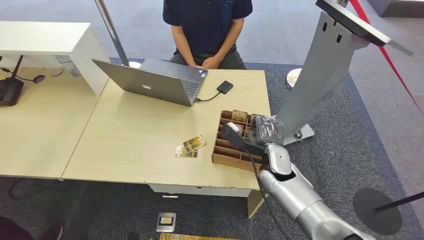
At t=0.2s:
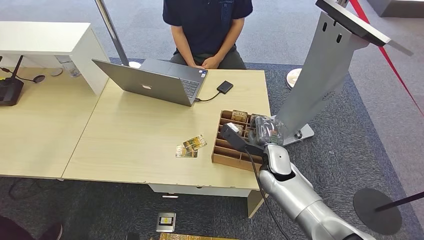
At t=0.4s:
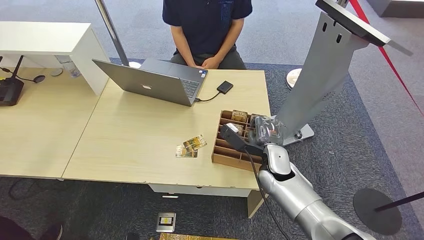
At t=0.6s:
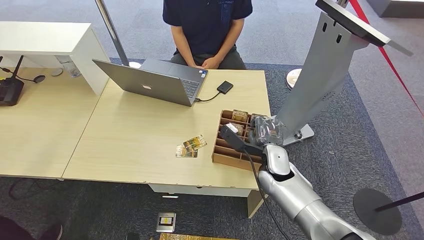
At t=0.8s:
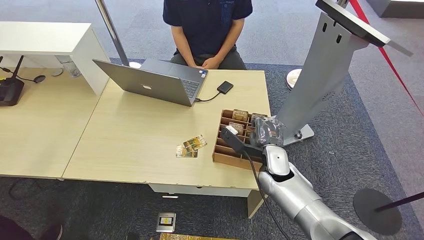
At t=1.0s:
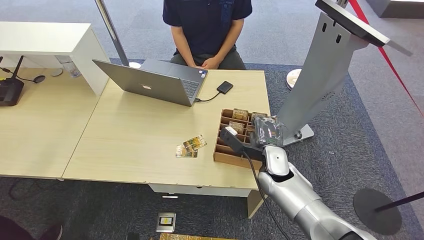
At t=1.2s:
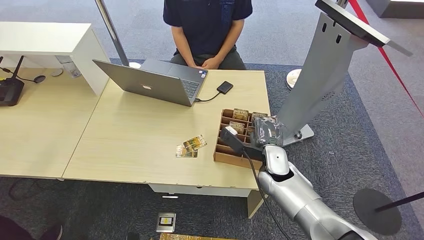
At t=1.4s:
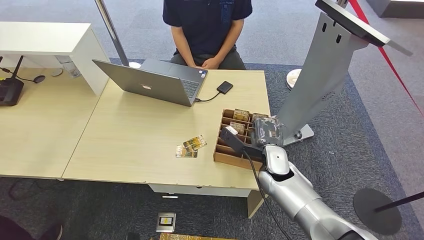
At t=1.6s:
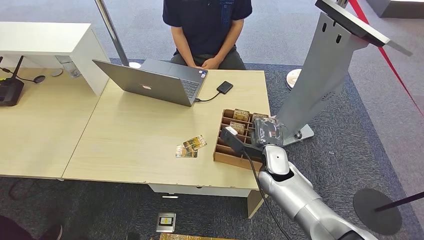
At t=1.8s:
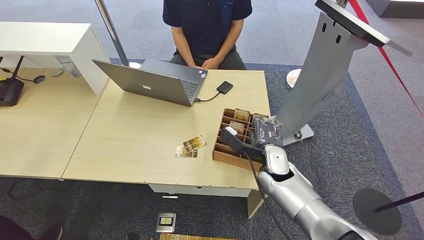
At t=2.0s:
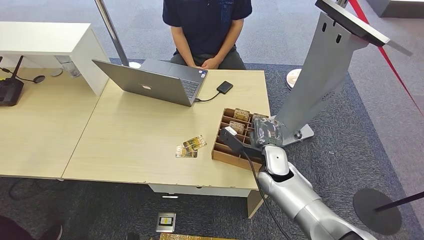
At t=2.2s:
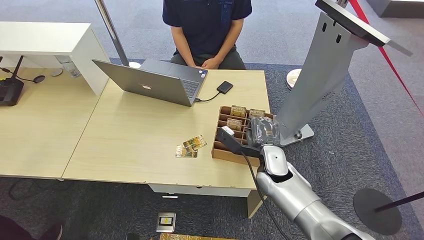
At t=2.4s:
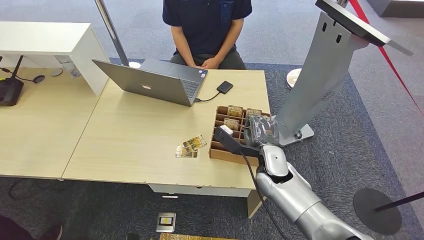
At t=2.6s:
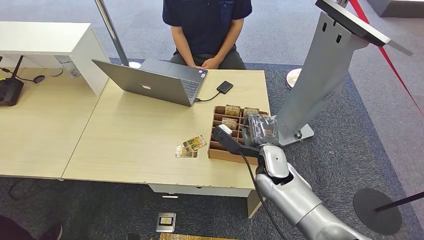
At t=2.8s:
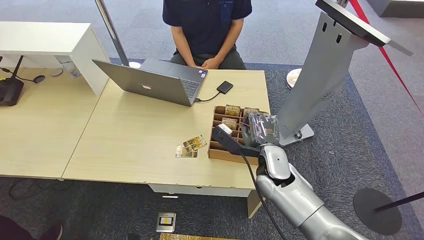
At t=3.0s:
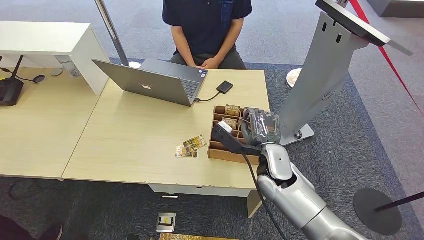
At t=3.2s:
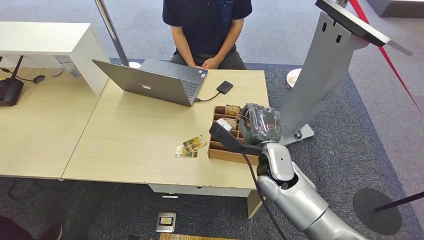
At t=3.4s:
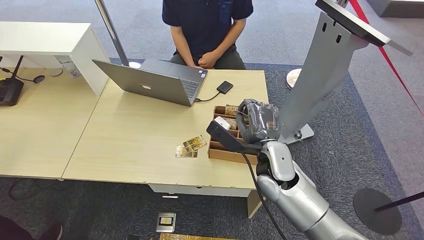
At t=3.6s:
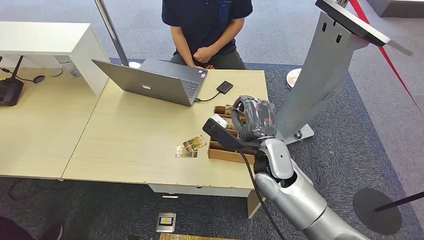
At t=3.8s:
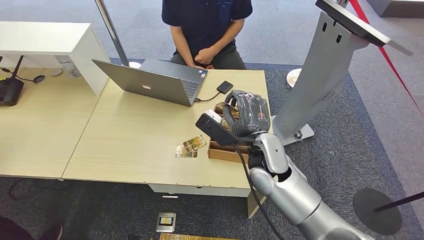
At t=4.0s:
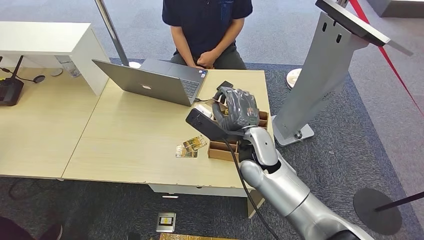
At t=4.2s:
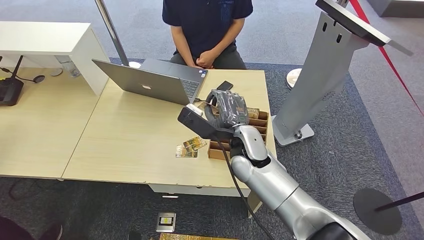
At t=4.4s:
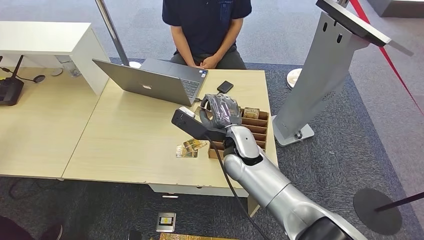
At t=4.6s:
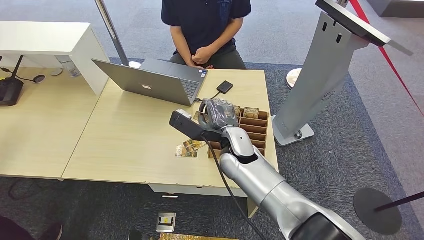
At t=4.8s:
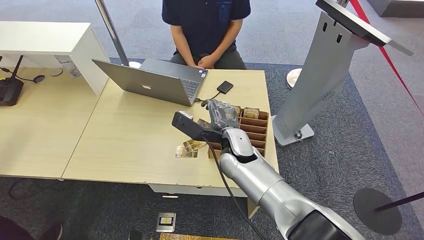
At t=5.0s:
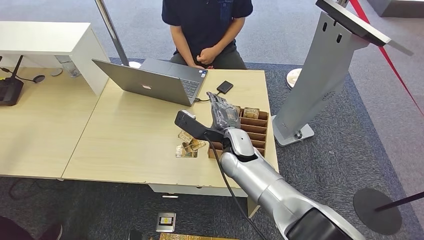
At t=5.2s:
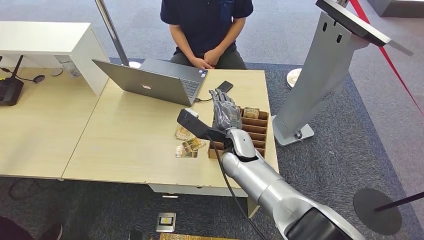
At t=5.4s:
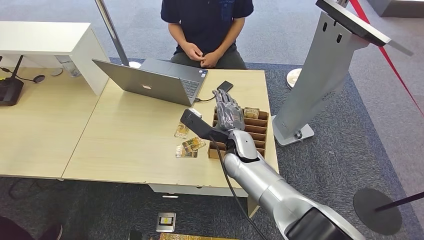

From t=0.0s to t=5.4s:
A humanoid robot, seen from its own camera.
Task of the whole recording: Pick up the card and hand it to the target person.
Step, from t=0.0s to t=3.6s: Pick up the key card from the card box.
Step, from t=3.8s to t=5.4s: Hand the key card to the target.
From t=1.4s to t=2.8s: The hands stay close to where they were, moving slightly.
From t=2.8s to t=4.0s: The right hand moves upward and to the left, approximately 10 cm.
From t=4.0s to t=5.4s: The right hand is displaced downward by about 5 cm.
